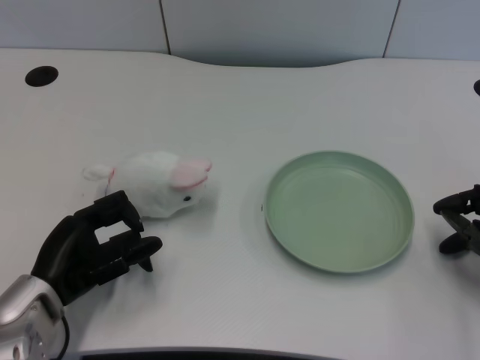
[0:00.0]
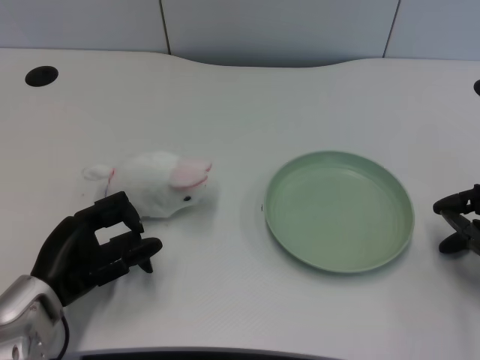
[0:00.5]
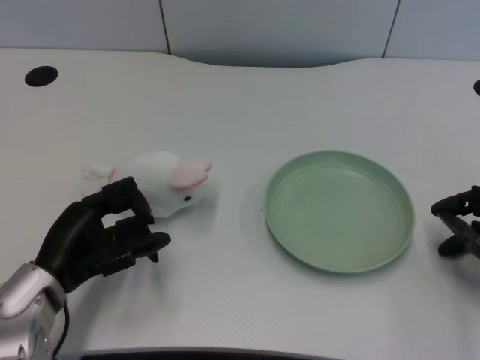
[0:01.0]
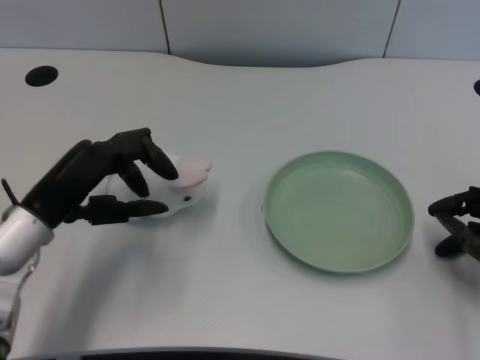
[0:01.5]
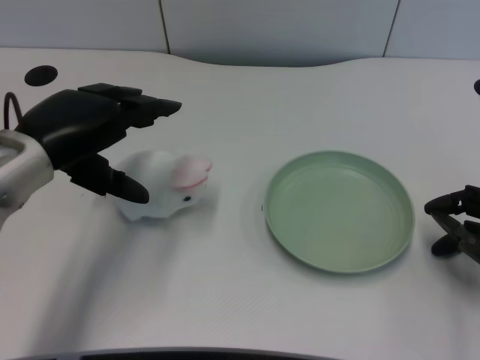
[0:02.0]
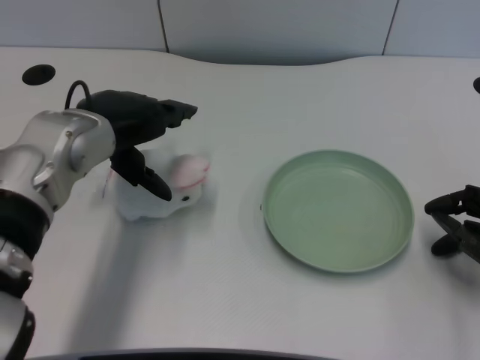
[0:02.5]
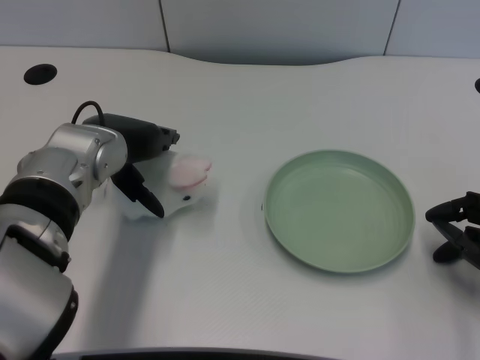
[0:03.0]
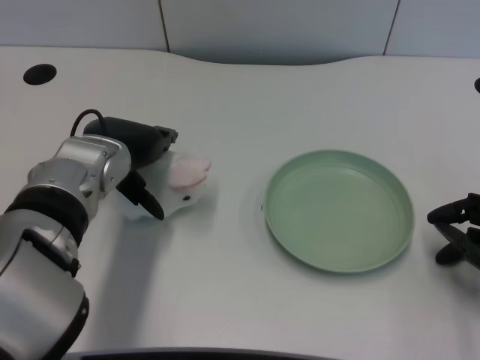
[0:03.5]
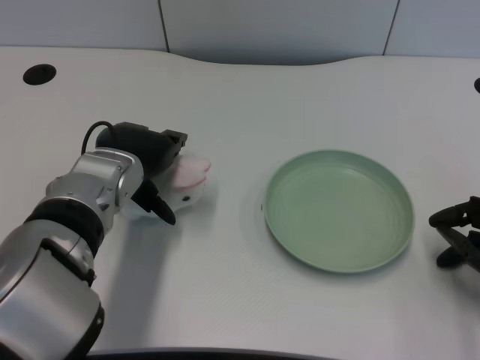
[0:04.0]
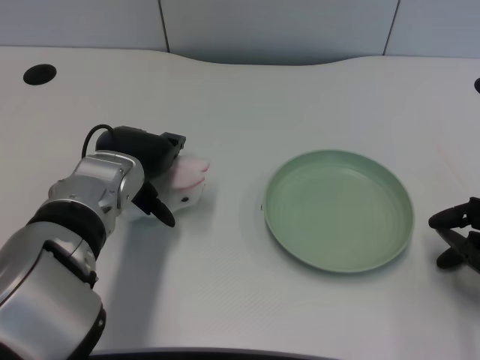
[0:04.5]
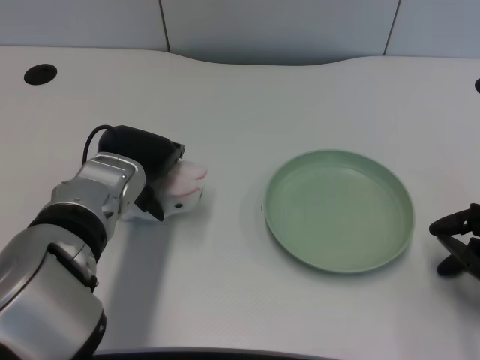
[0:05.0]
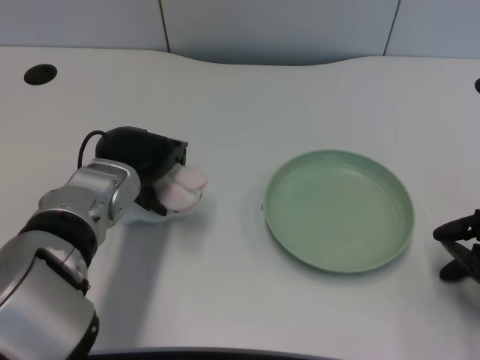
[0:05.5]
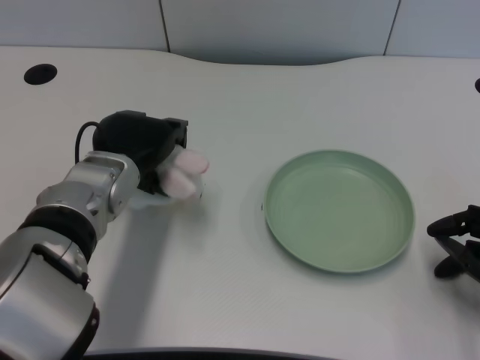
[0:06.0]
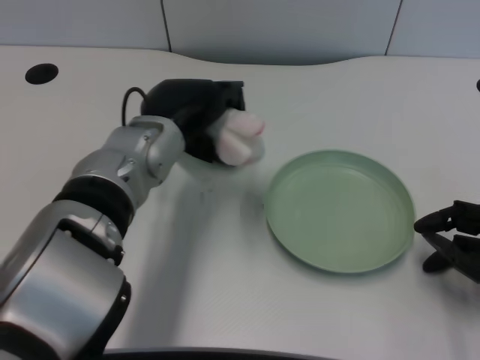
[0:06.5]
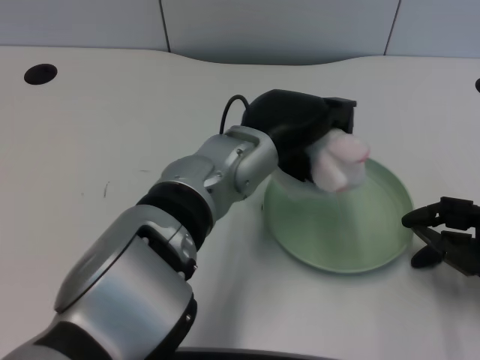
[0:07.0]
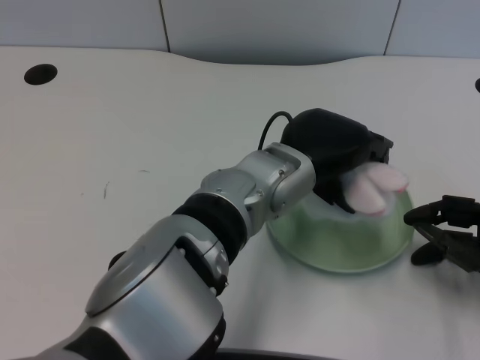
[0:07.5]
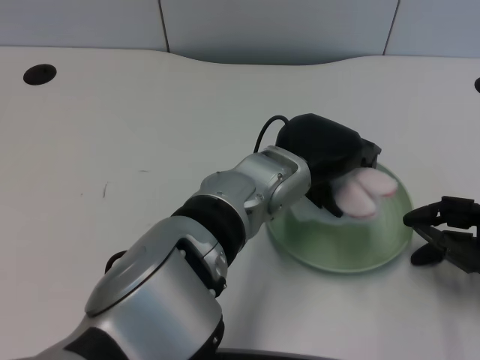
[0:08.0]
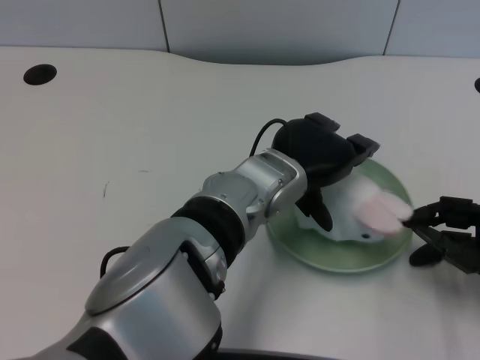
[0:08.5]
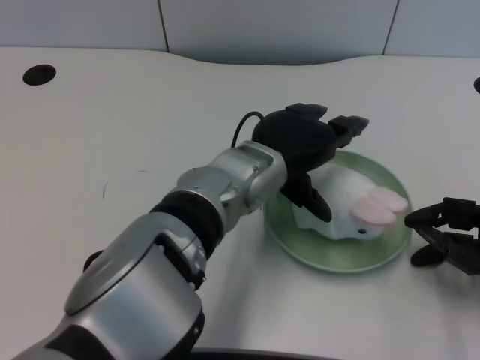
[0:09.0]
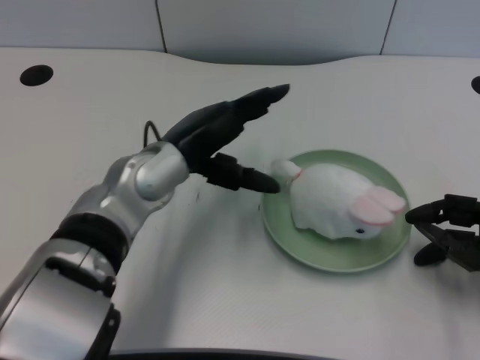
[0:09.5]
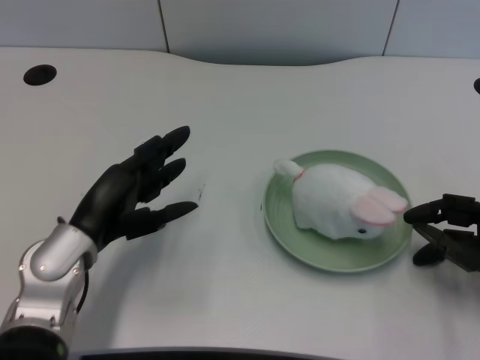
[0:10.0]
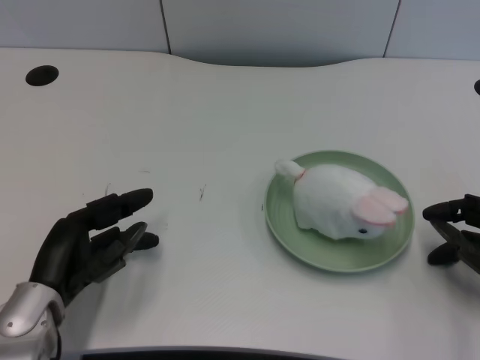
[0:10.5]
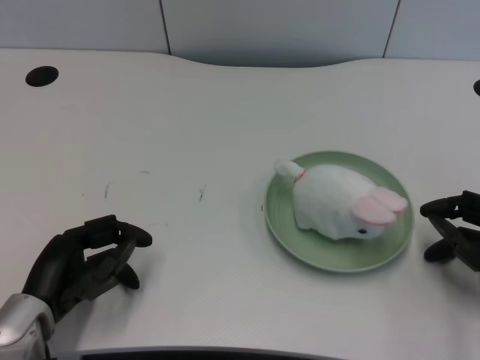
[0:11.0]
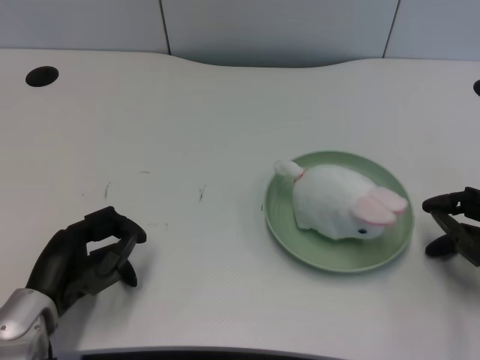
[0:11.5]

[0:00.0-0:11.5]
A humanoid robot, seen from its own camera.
Task of the whole recording: pick up the rabbit doll from the table and place it on the plate.
Step, 0:01.0 to 0:05.5: Grasp the rabbit doll with the left gripper.
Step, 0:06.0 to 0:08.0: Place the rabbit doll into the plate with the left gripper.
0:02.0 to 0:04.0: The left hand is displaced to the right and downward by approximately 10 cm.
0:04.0 to 0:06.0: The hands move only a little.
0:06.0 to 0:07.5: The left hand travels to the right by approximately 15 cm.
0:07.5 to 0:09.5: The left hand goes roughly 10 cm to the left.
0:09.5 to 0:11.5: The left hand goes about 20 cm to the left, downward and backward.

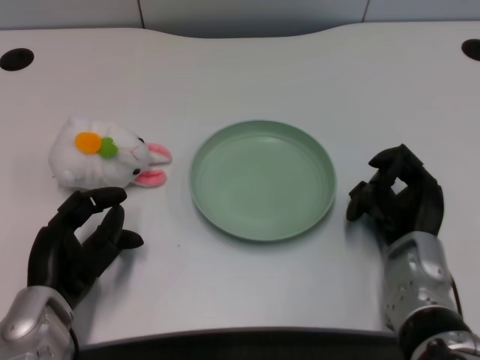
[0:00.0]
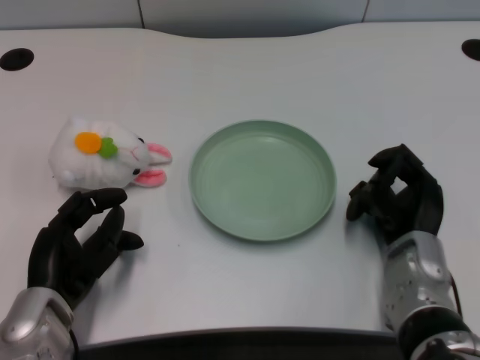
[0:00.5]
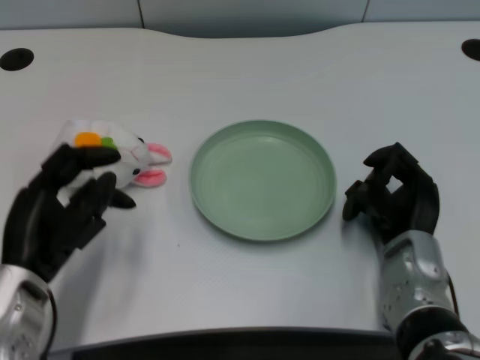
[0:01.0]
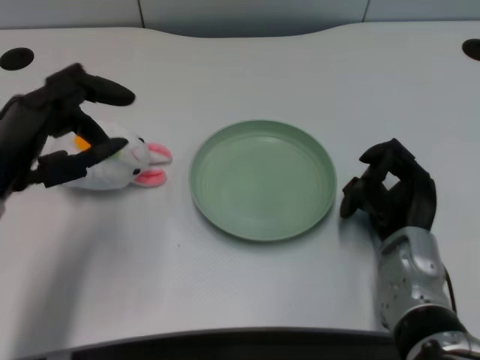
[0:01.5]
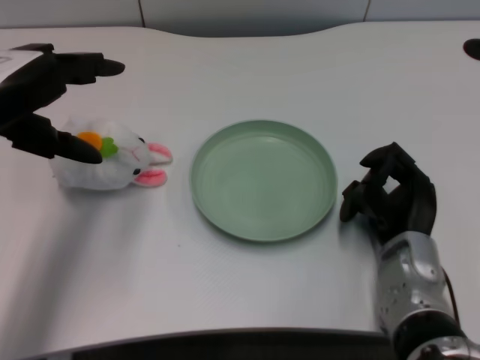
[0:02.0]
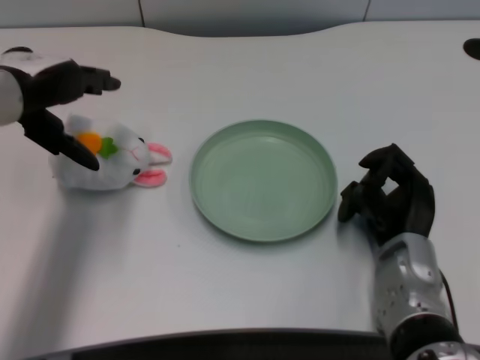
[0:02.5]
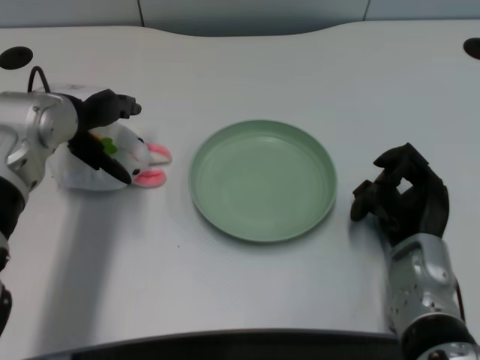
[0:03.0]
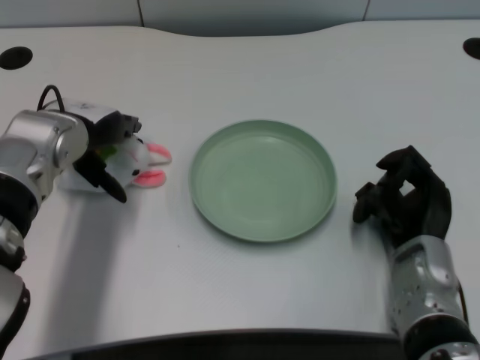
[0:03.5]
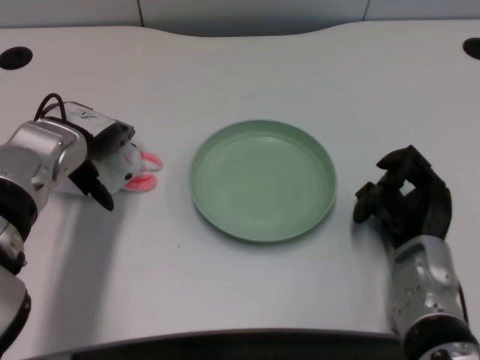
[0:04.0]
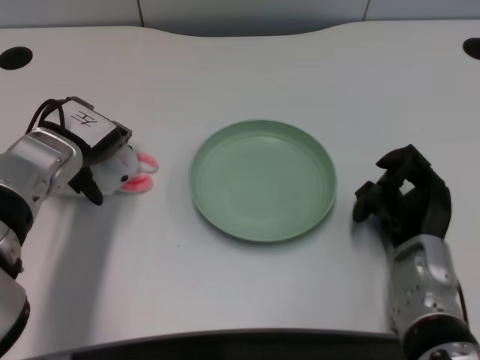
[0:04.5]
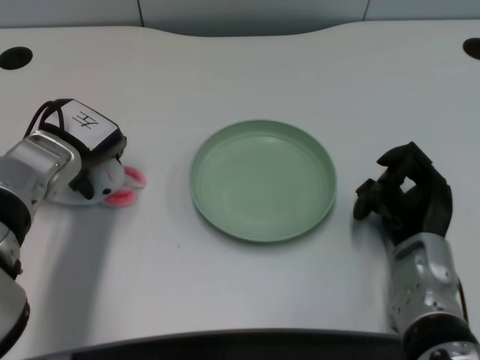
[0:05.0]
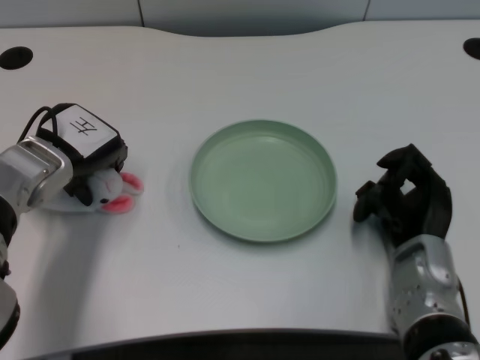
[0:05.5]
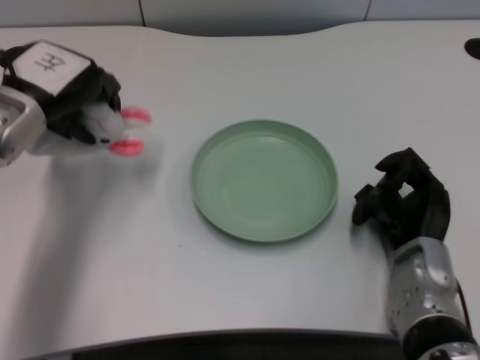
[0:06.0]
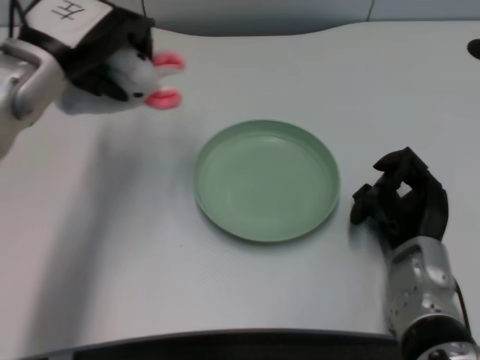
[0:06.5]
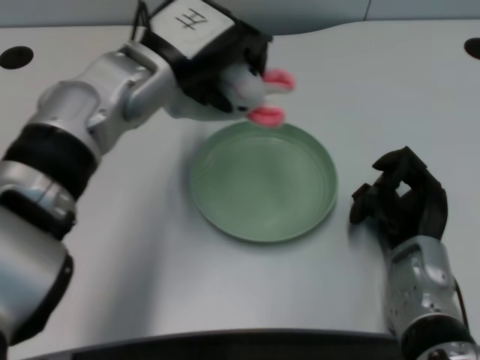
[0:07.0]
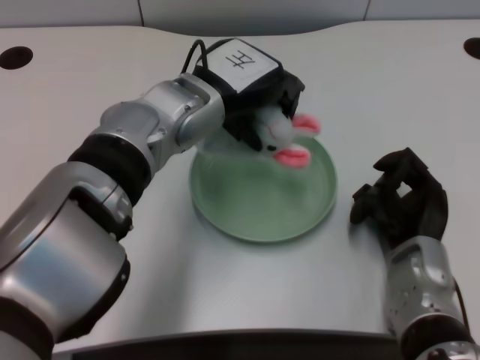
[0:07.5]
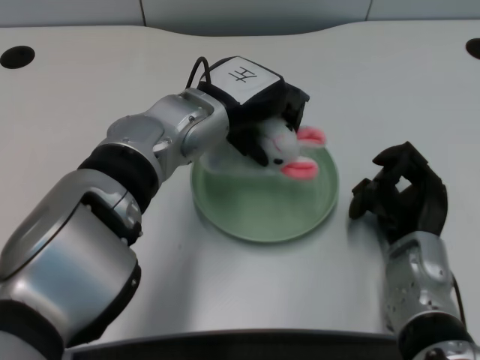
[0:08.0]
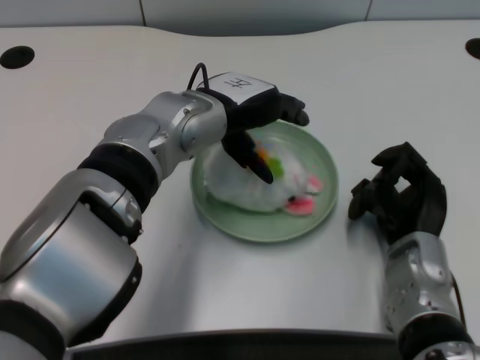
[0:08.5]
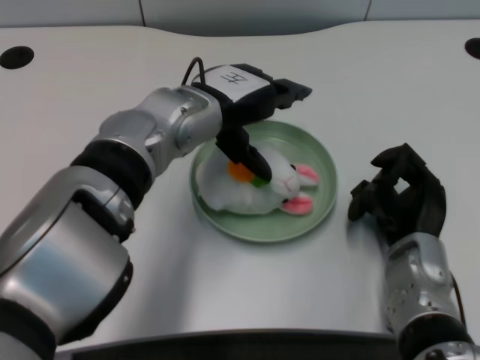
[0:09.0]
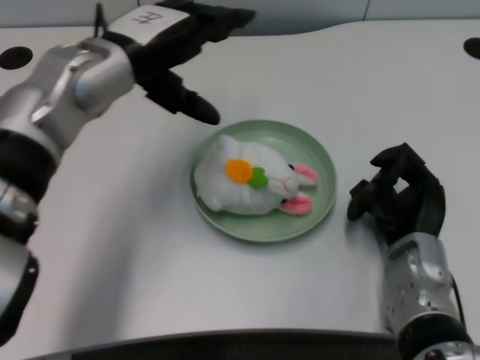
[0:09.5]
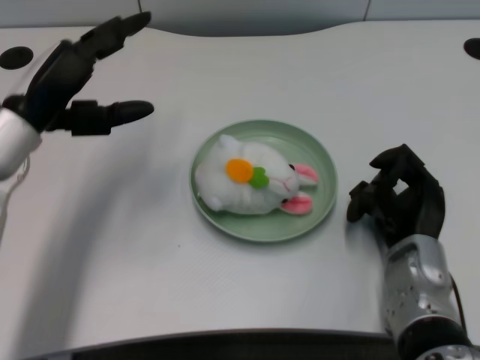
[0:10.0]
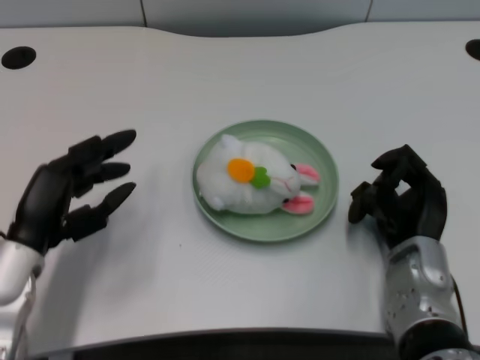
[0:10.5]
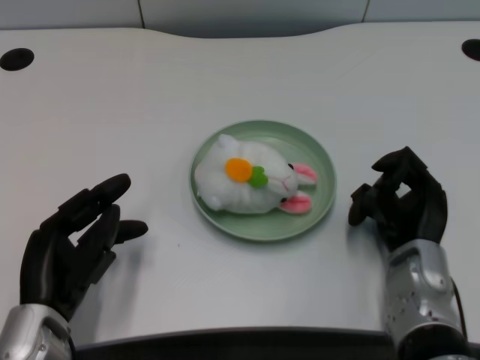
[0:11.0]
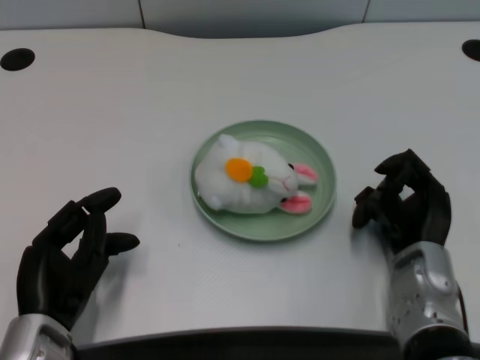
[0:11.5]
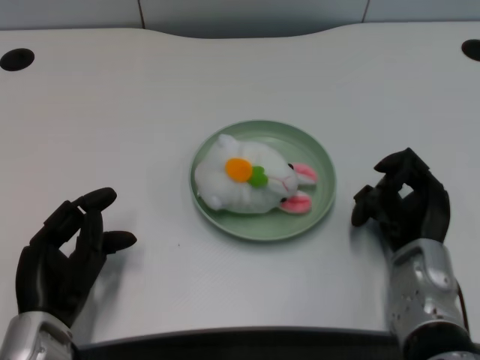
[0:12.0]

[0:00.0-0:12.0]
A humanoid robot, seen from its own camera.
Task of the whole recording: pick up the rabbit doll from the table and place it on the plate.
Step, 0:01.0 to 0:05.5: Grasp the rabbit doll with the left gripper.
Step, 0:06.0 to 0:08.5: Place the rabbit doll into the plate with the left gripper.
0:02.0 to 0:04.0: The left hand travels downward and forward by some 10 cm.
0:06.0 to 0:08.0: The left hand travels to the right by approximately 15 cm.
0:08.0 to 0:10.0: The left hand moves to the left, roughly 15 cm.
0:10.0 to 0:12.0: The left hand goes about 20 cm downward and backward.
